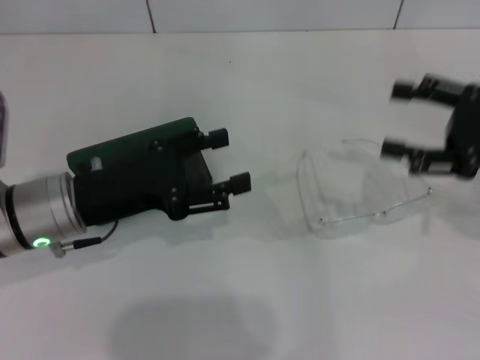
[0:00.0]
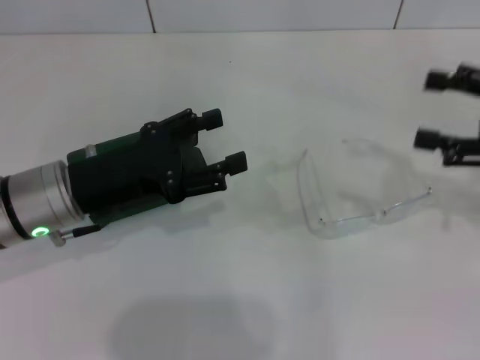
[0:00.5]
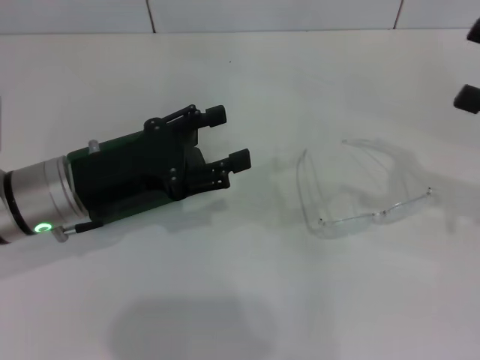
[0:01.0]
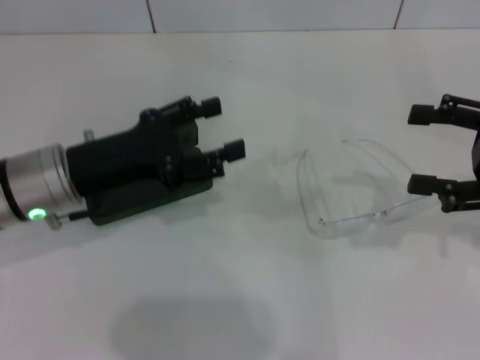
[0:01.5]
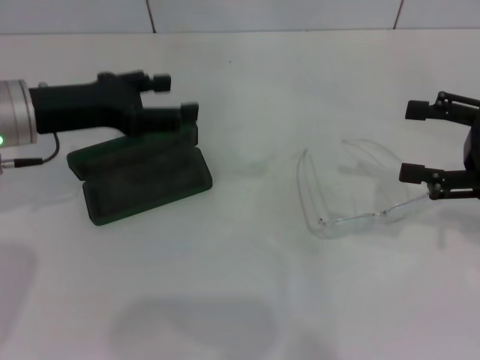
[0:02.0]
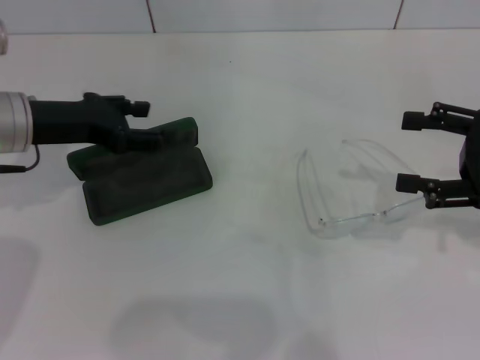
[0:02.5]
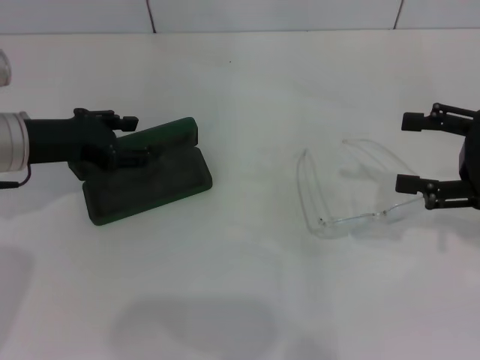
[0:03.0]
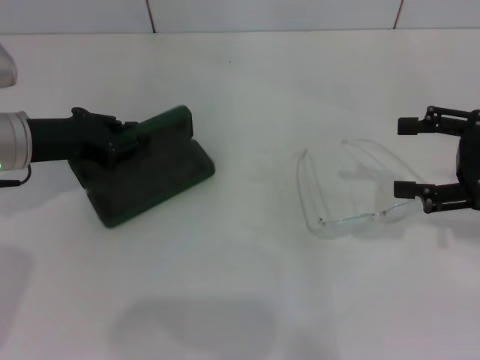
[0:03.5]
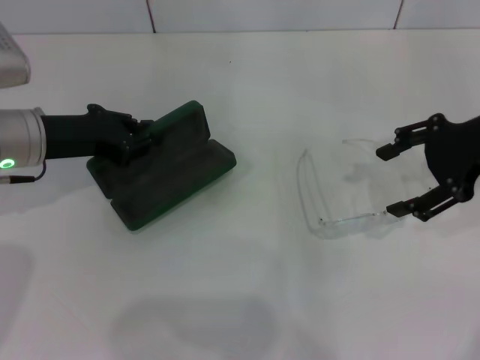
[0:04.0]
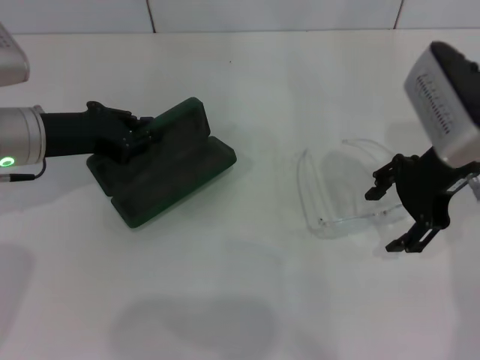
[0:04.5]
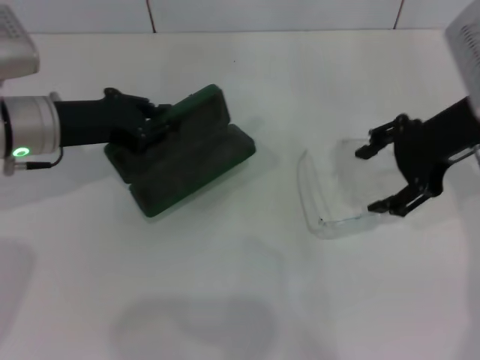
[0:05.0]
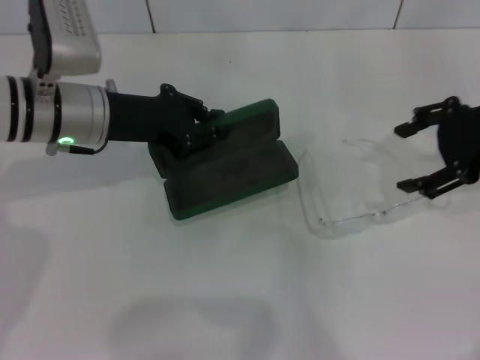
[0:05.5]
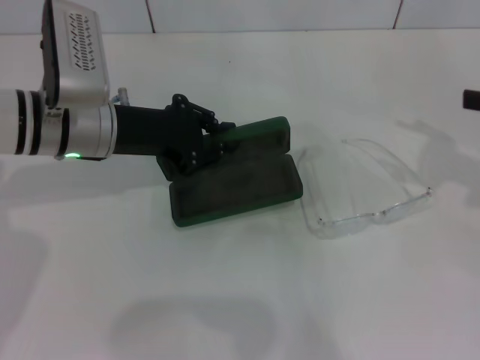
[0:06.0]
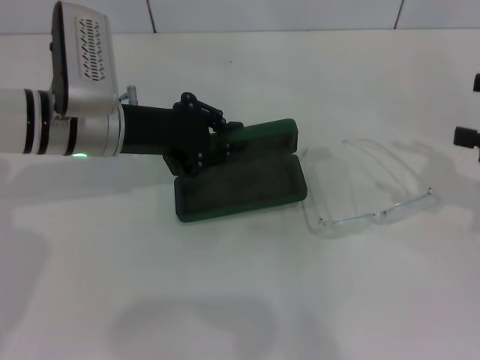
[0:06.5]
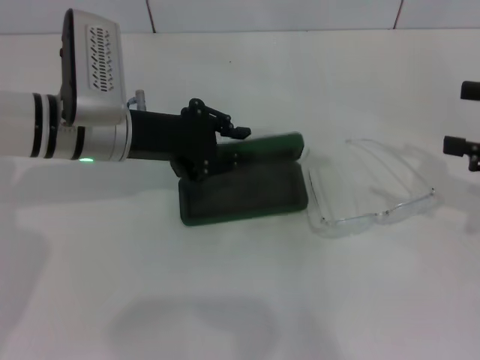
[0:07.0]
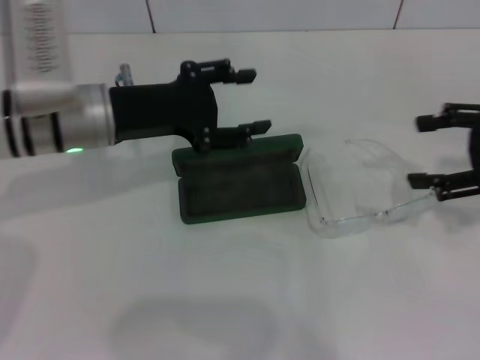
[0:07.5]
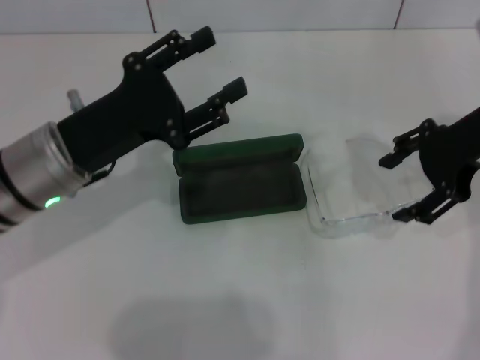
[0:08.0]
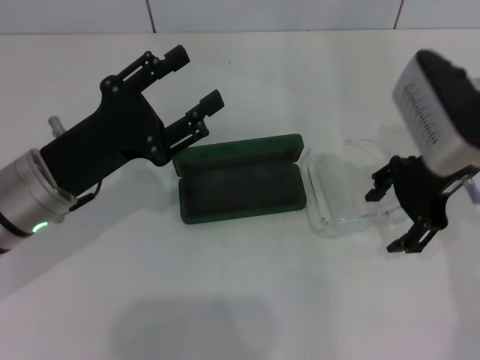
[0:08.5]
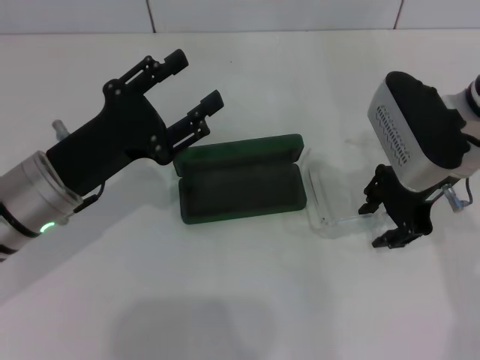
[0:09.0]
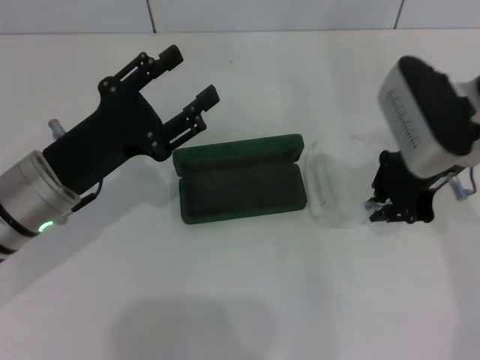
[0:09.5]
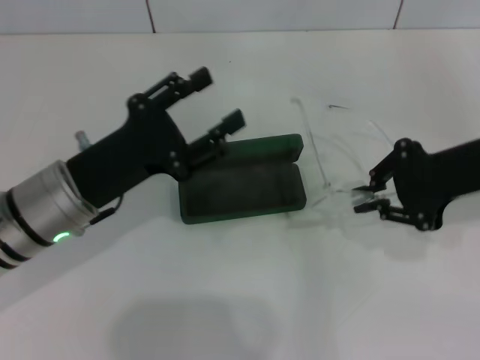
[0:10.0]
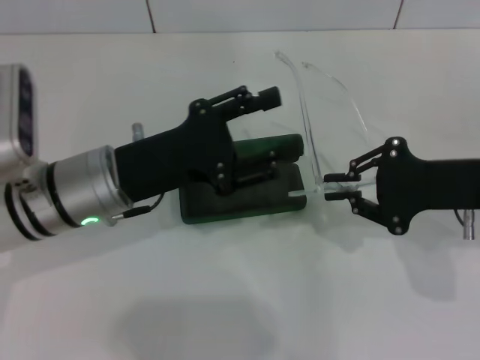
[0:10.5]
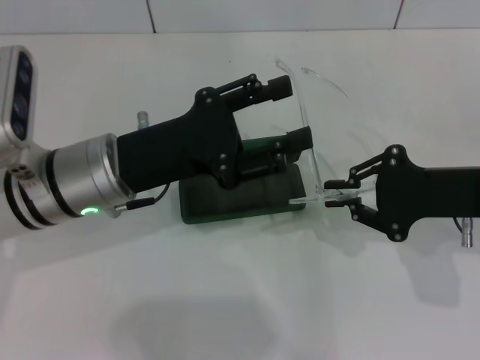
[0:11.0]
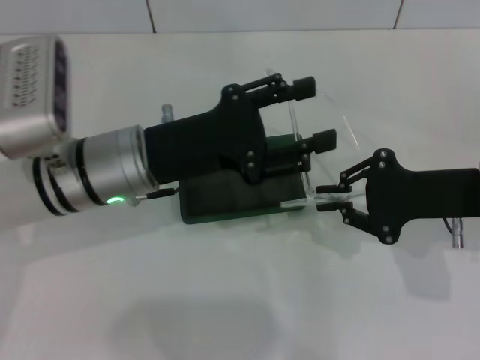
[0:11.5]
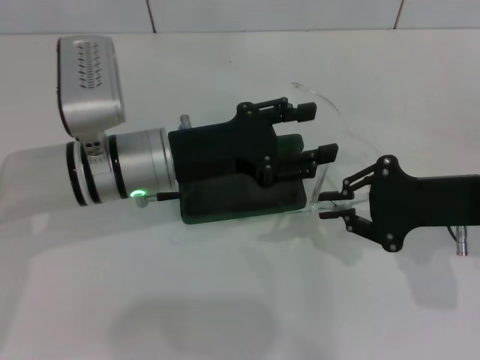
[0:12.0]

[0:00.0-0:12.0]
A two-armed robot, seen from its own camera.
Step, 0.0 to 3.5 s: Grab the glasses case with your left hand.
Step, 4.0 to 7.5 s: Place the glasses case in the center of the table with your left hand.
Step, 8.0 to 9.0 s: Grab the eyeglass frame with your right hand.
0.0 to 2.0 s: The left gripper heads forward and upward, covering about 10 cm.
2.0 to 4.0 s: The left gripper closes its fingers. Meanwhile the right gripper heads forward and to the left, covering roughly 10 cm.
4.0 to 6.0 s: The two grippers go about 10 cm to the right.
6.0 to 8.0 s: The right gripper shifts about 15 cm to the left and forward. Meanwhile the left gripper shifts about 5 cm backward, and opens its fingers.
8.0 to 10.0 s: The right gripper closes.
10.0 to 12.0 s: The left gripper moves to the right and forward, about 10 cm. The right gripper is displaced downward by approximately 5 cm.

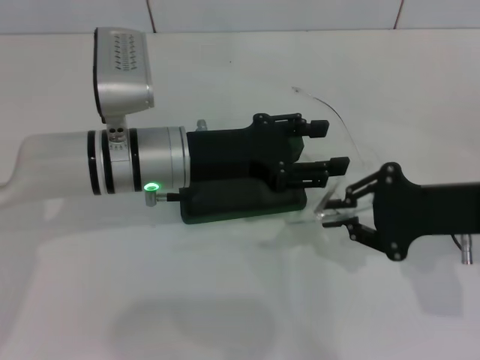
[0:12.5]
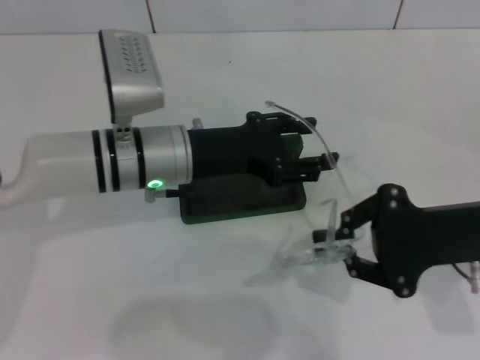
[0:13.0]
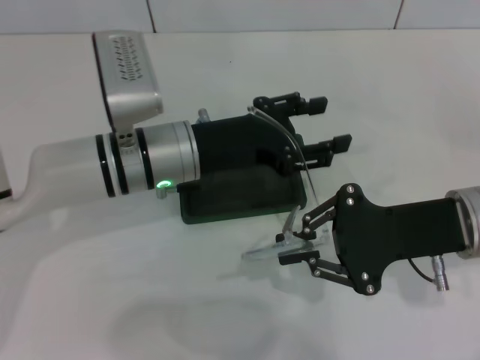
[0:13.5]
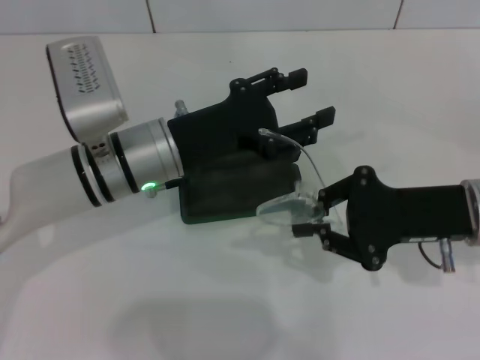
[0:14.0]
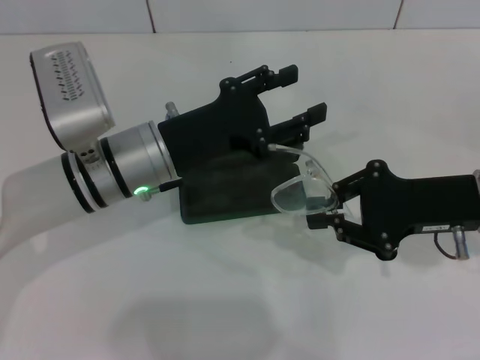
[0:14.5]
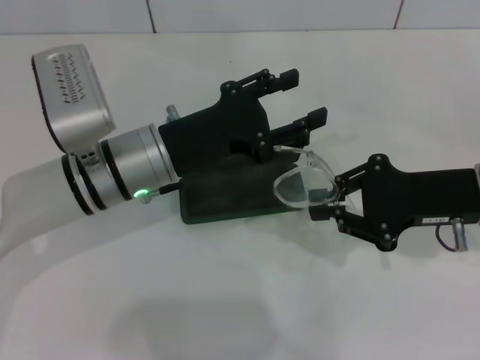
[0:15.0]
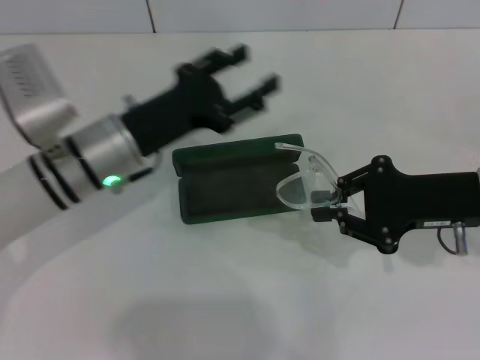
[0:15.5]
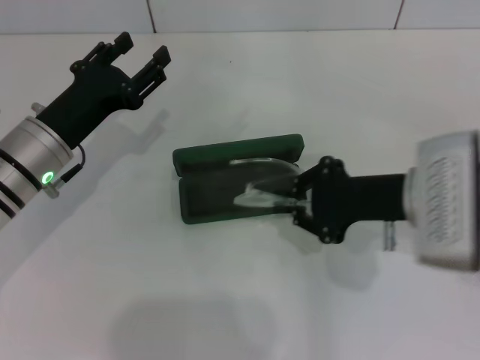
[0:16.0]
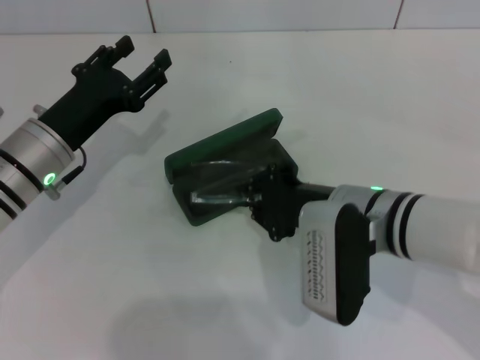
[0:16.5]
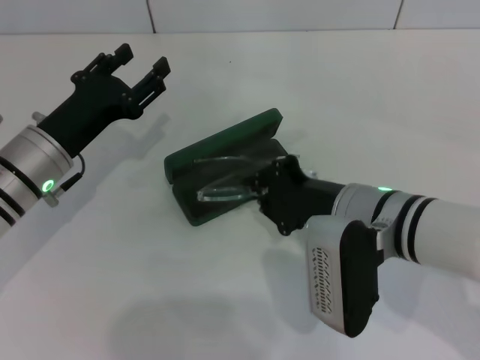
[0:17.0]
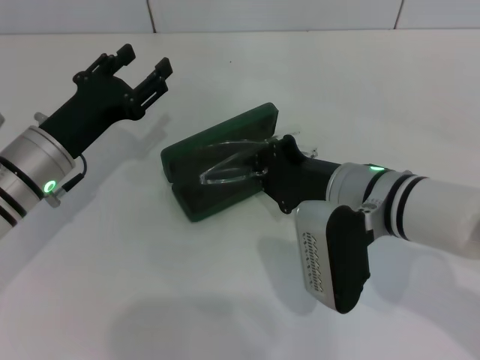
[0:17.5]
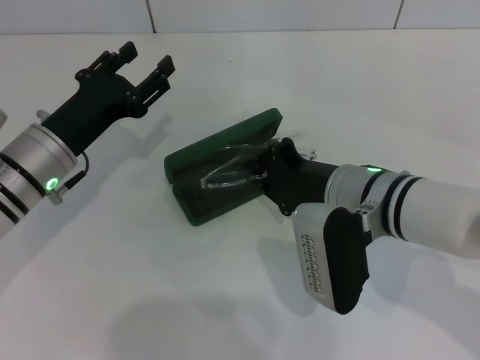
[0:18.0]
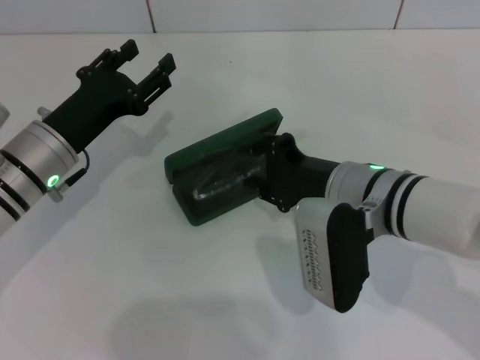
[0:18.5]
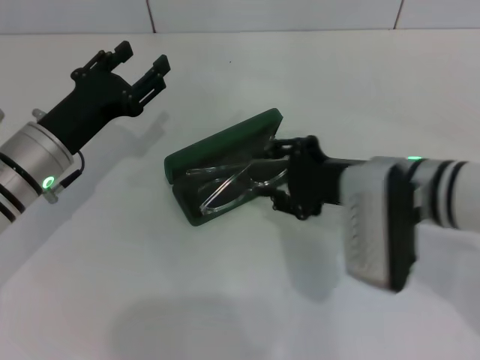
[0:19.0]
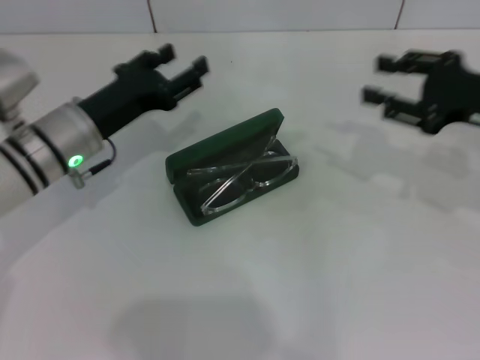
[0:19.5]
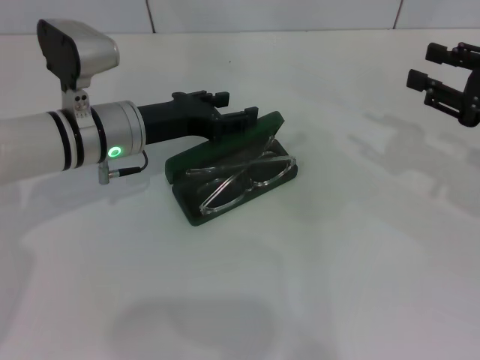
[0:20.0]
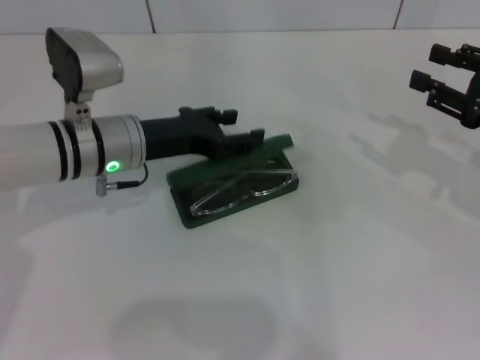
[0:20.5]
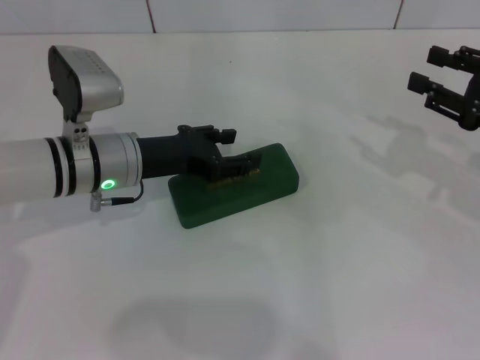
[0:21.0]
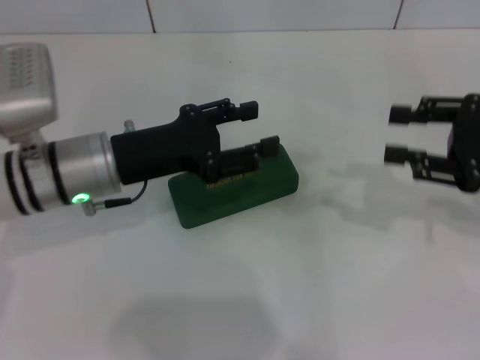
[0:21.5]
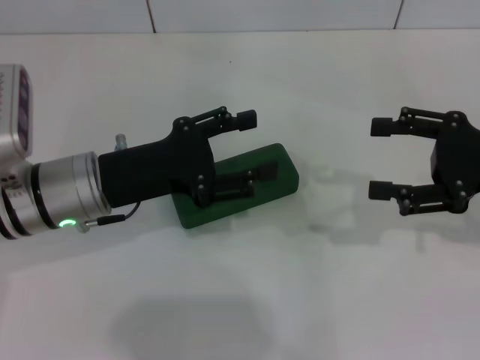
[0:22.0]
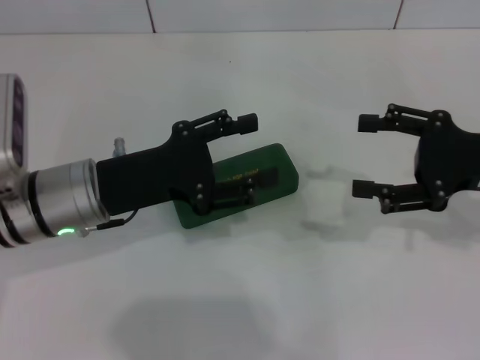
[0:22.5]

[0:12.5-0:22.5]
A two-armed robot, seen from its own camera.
Step, 12.5 to 14.5 s: Fold the frame with your left hand.
Step, 15.0 to 18.5 s: Put the glasses into the case with your right hand.
Step, 19.0 to 21.0 s: Close the glasses case with your left hand.
14.5 to 16.5 s: The grippers both shift to the left by approximately 10 cm.
16.5 to 18.5 s: There are only small adjustments of the grippers.
18.5 to 20.5 s: The right gripper goes some 20 cm to the right, and opens, while the left gripper shifts about 5 cm to the right.
20.5 to 22.5 s: The right gripper opens up. Meanwhile the left gripper moves backward, approximately 5 cm.

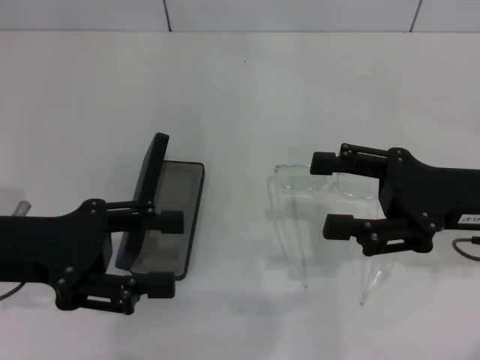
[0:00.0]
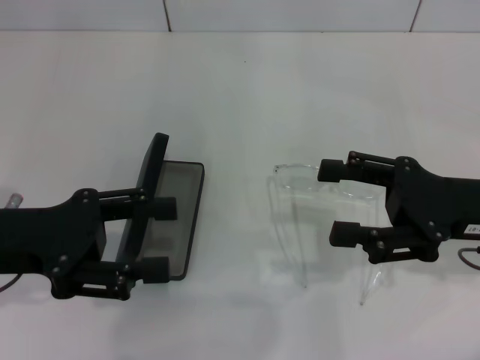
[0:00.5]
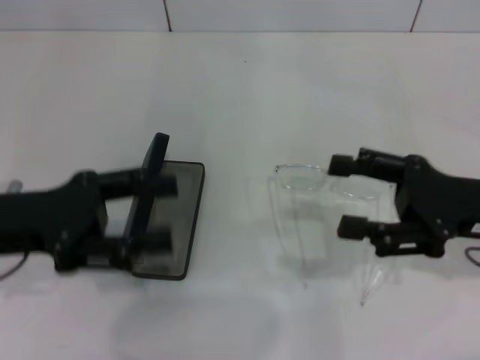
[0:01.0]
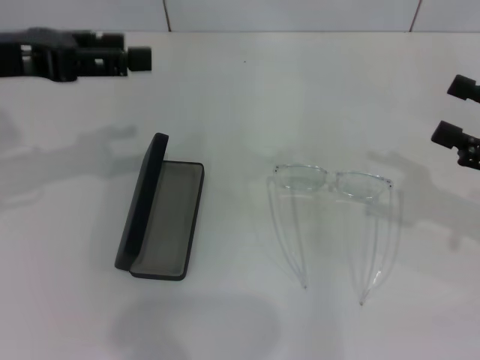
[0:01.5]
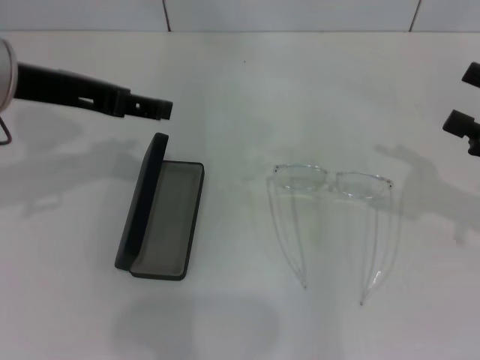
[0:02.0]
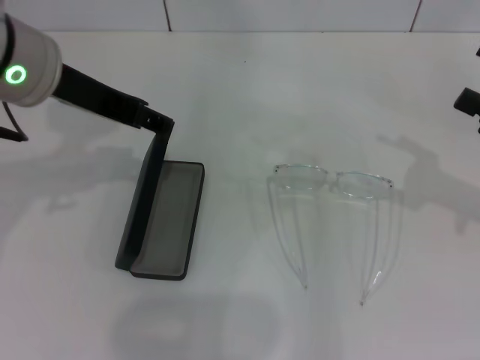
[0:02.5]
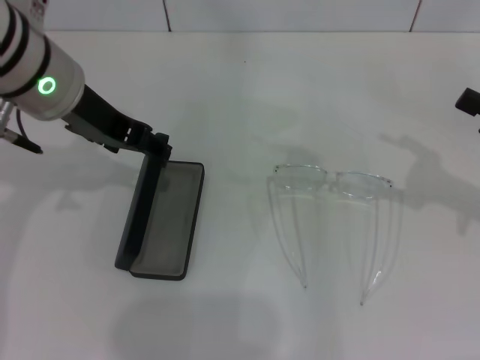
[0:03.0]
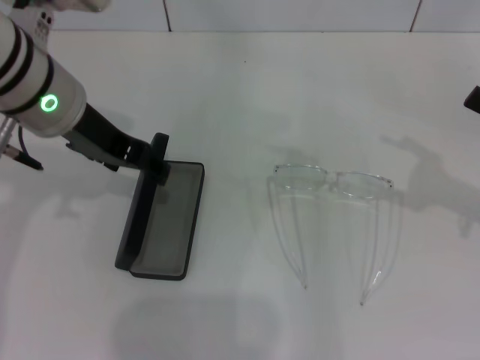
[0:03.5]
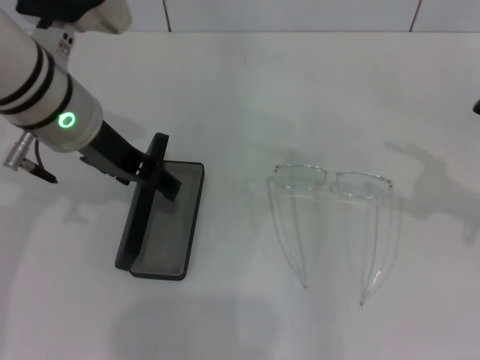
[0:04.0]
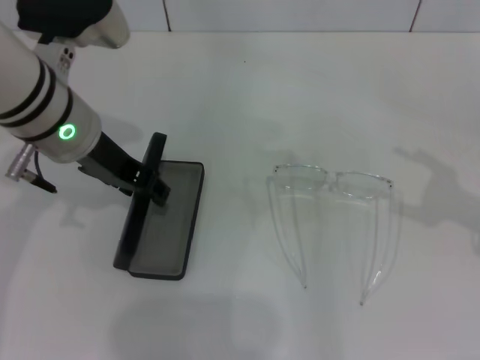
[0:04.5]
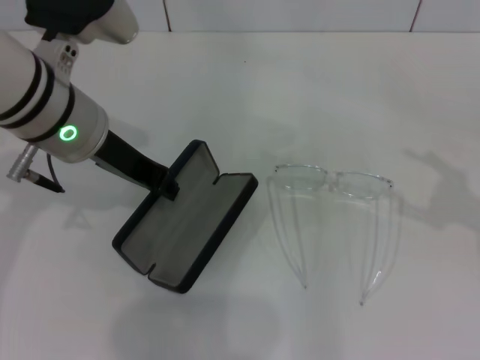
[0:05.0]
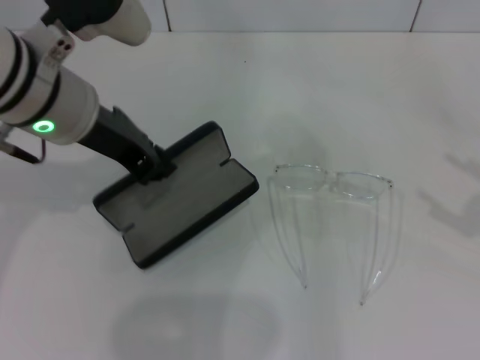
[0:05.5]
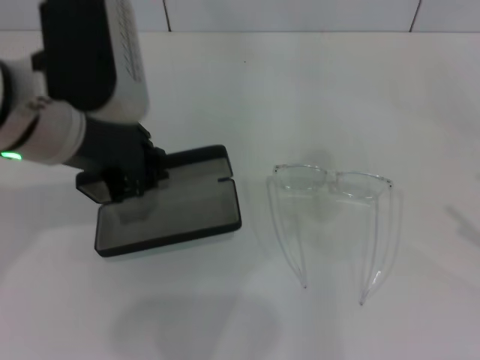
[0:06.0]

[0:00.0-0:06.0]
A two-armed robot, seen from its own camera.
Step, 0.0 to 4.5 s: Grab the glasses case with your left hand.
0.0 to 2.0 s: The right gripper heads to the right, covering some 10 cm; the left gripper travels upward and forward by roughly 15 cm.
2.0 to 4.0 s: The left gripper goes roughly 5 cm to the right.
4.0 to 6.0 s: The left gripper ends up some 5 cm from where it was, and closes. The right gripper heads backward and to the right, covering approximately 10 cm.
